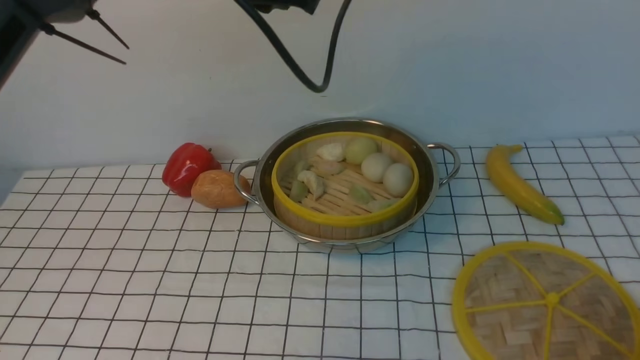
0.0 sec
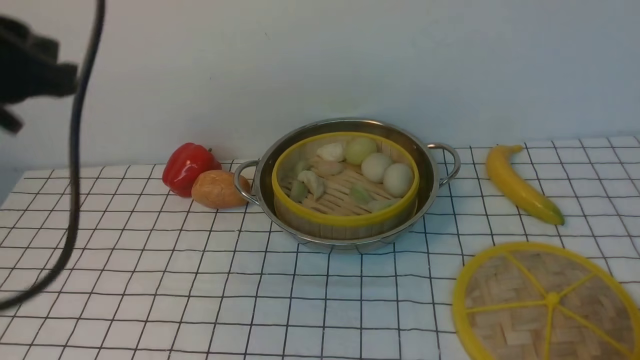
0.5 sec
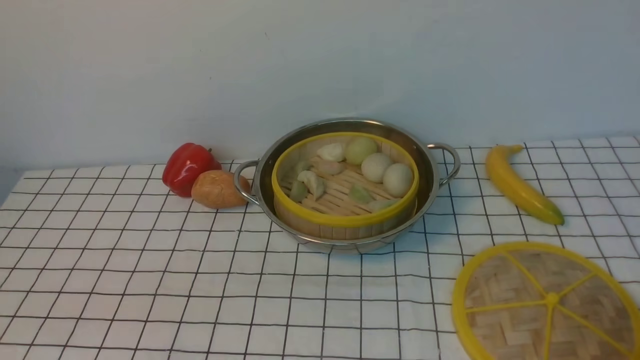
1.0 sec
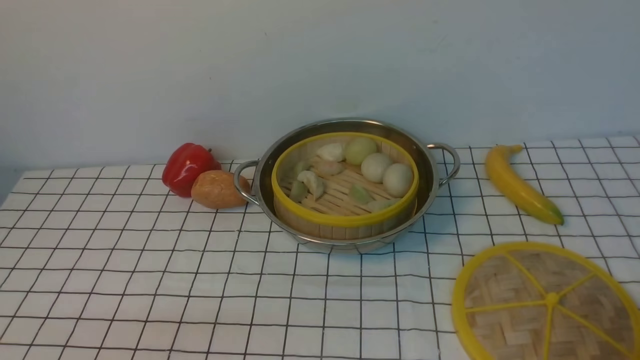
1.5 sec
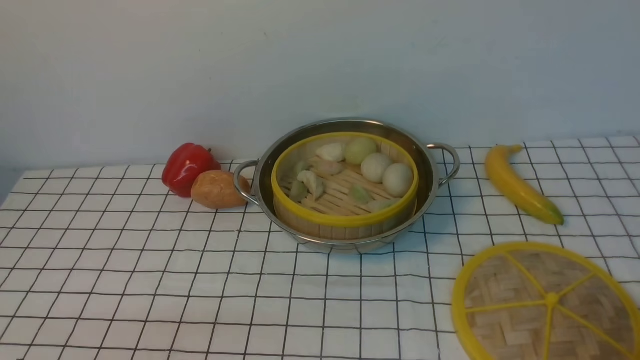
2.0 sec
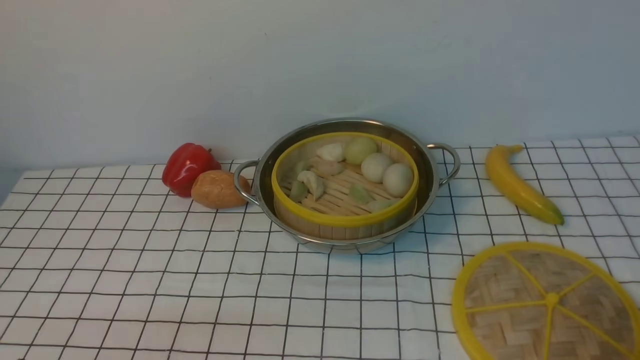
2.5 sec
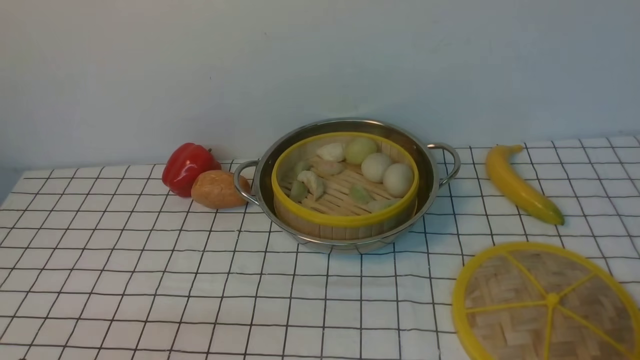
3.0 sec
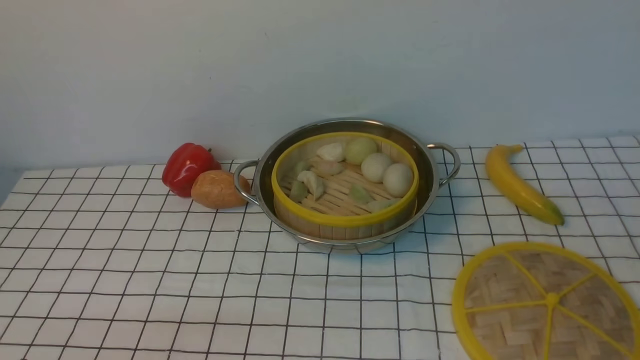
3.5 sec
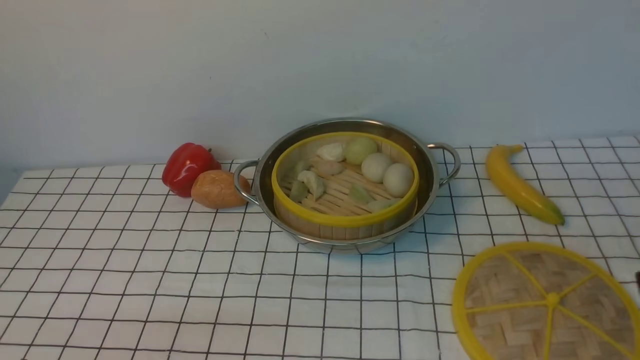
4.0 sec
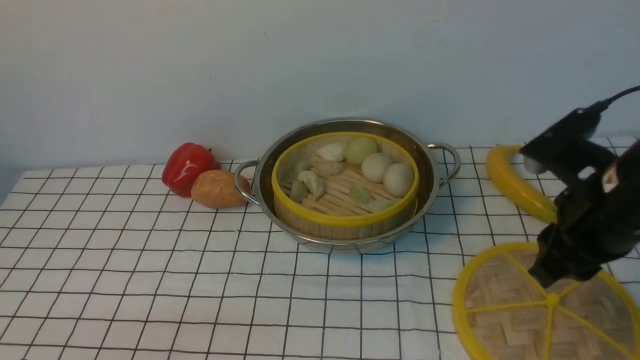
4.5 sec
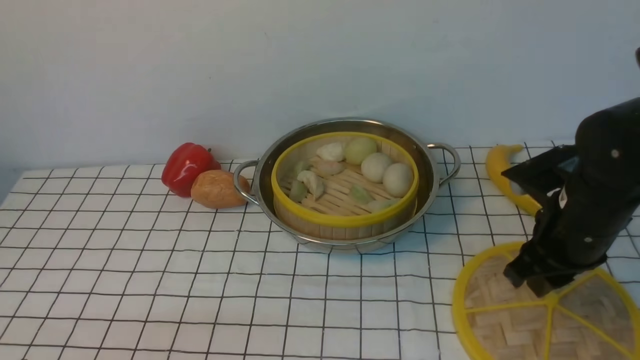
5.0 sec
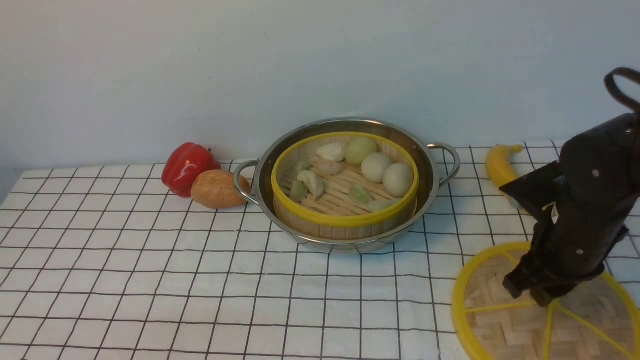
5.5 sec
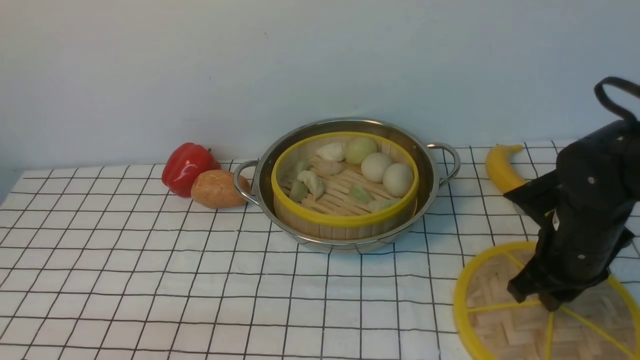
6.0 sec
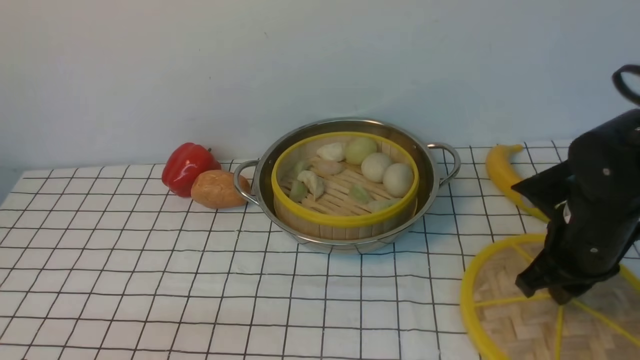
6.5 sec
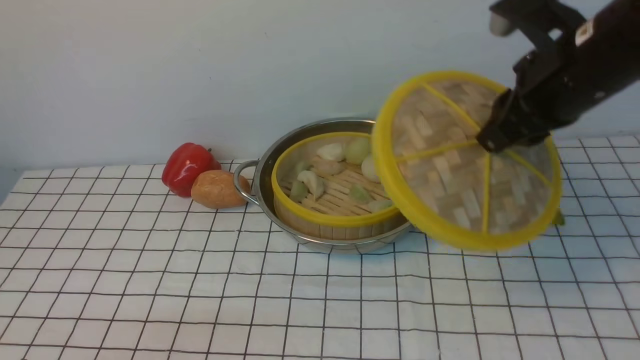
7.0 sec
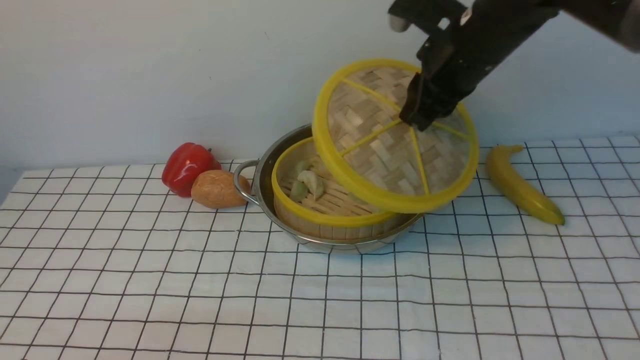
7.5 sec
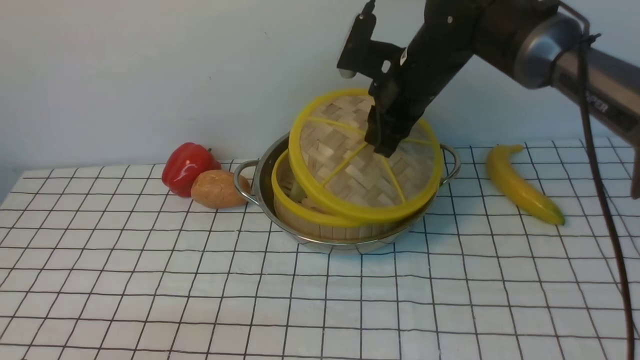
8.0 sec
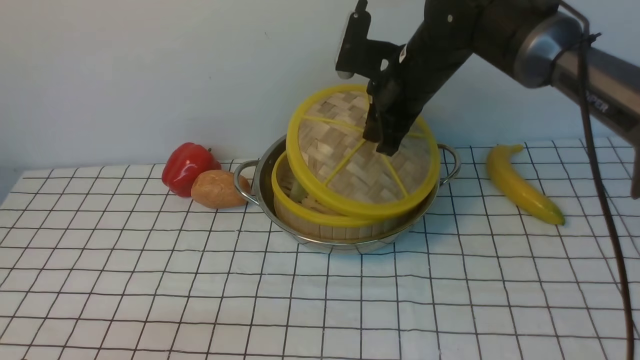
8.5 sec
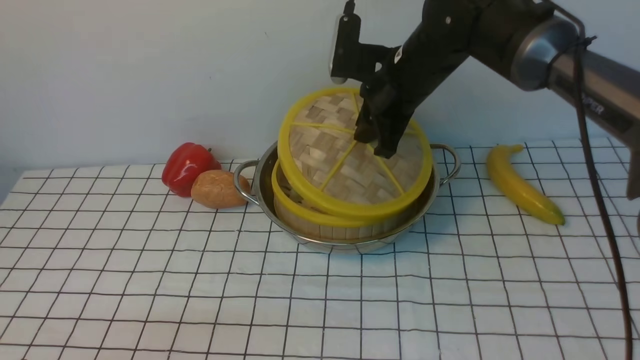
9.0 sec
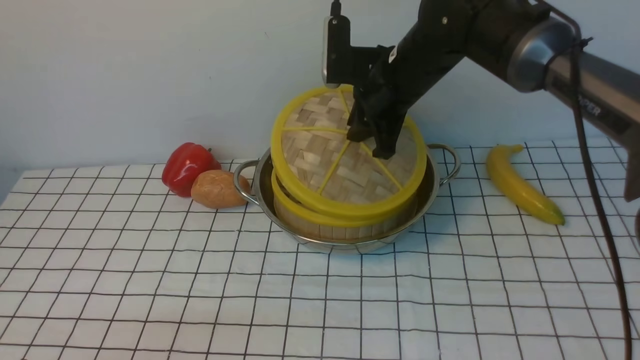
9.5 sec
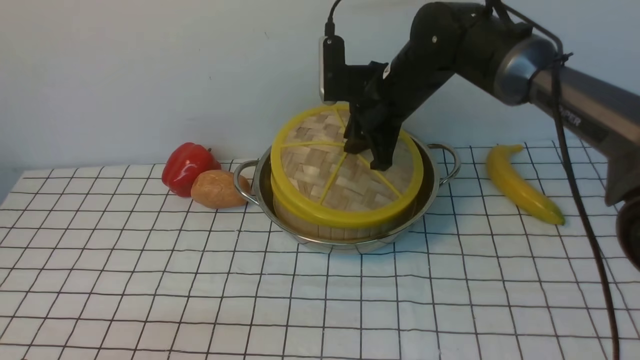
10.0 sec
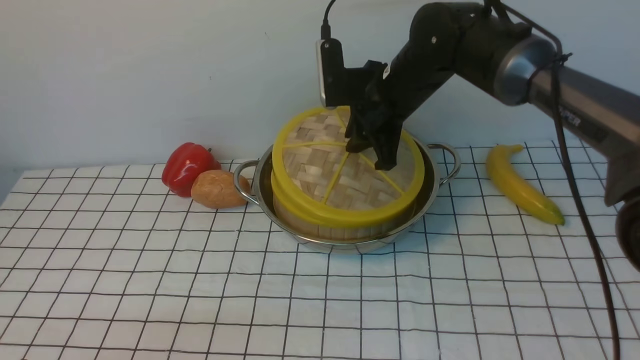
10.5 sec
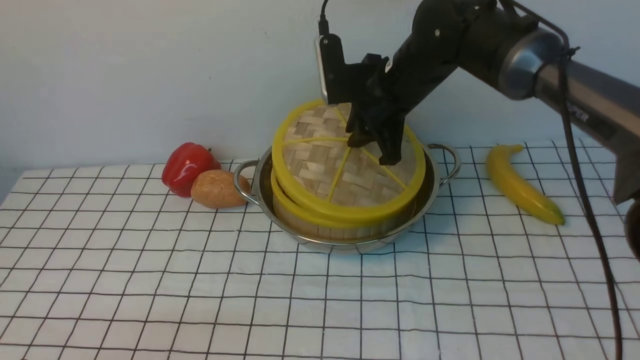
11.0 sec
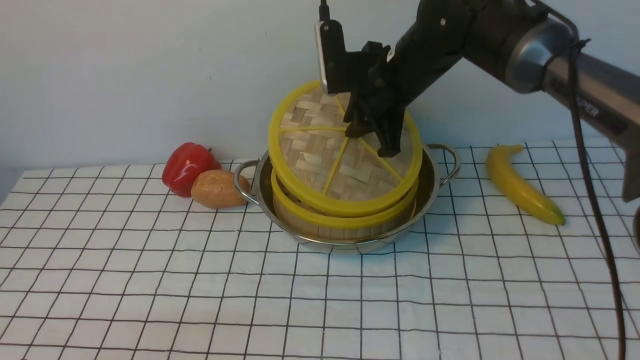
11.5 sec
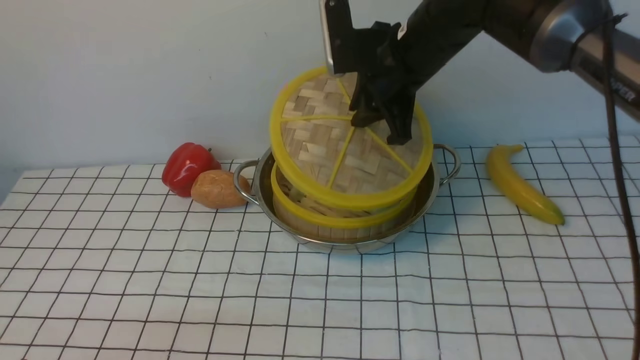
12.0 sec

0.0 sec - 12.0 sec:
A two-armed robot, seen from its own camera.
Task of the whole recording: place the steamer in the pot on the white tablecloth, and put the lid on the steamer.
Step, 0.0 sec - 6.5 sec: use the right arm to lift the lid of the steamer.
0.0 sec - 2.0 sec: The left gripper goes approximately 40 cm backward, downward and to the left.
4.0 sec - 6.0 sec: The right gripper goes some 15 cm forward, downward and to the left.
6.0 sec - 8.0 sec: The right gripper heads forward, to the left and upward, covering some 20 cm.
10.0 sec - 12.0 sec: The right gripper moves upward, some 5 cm.

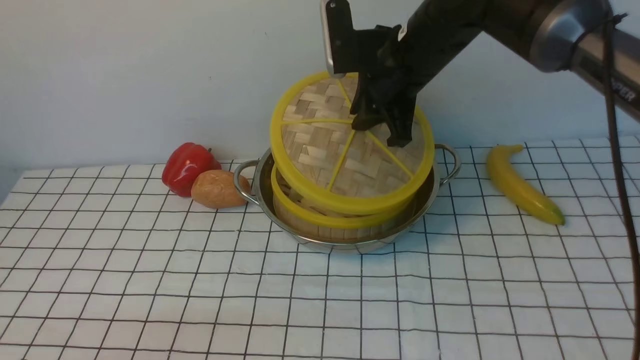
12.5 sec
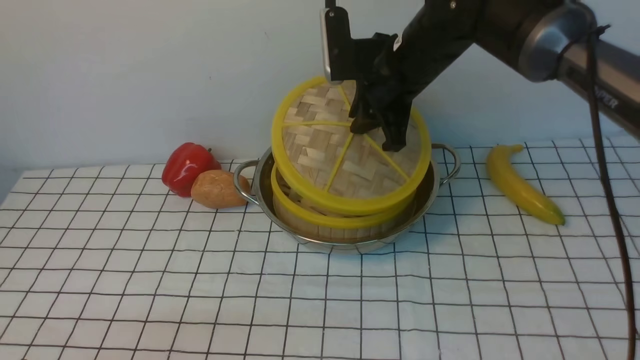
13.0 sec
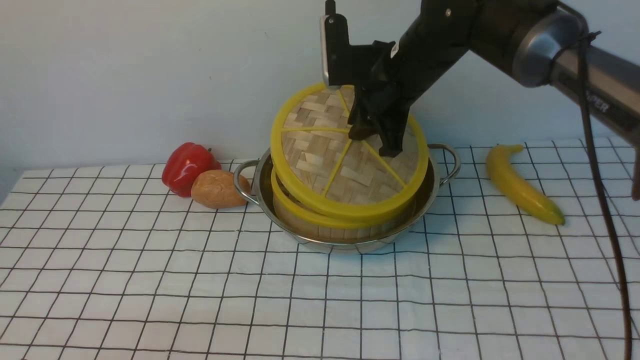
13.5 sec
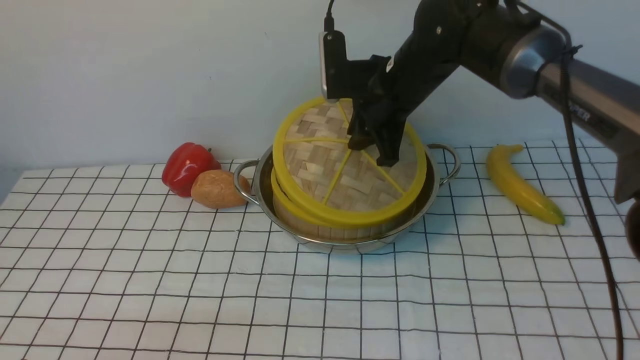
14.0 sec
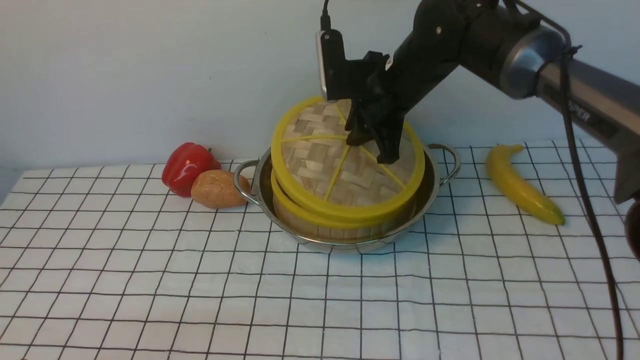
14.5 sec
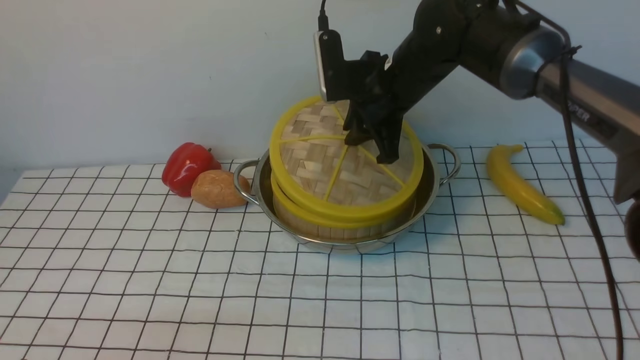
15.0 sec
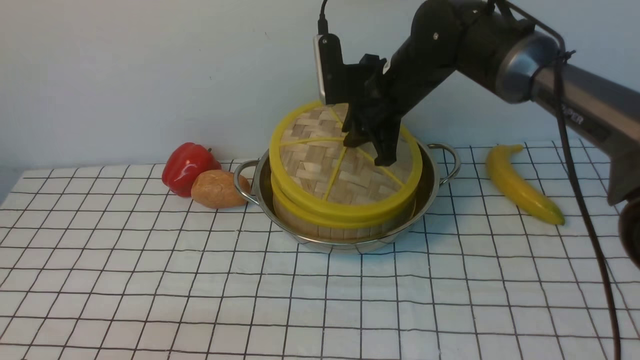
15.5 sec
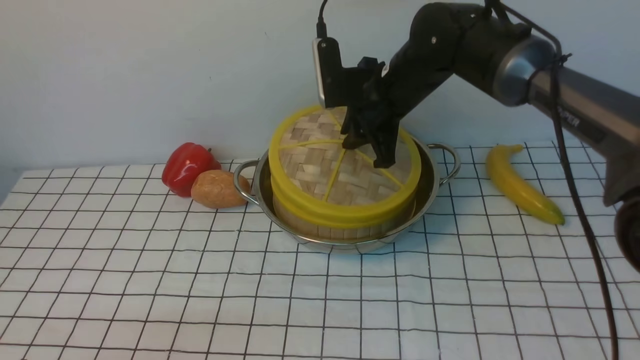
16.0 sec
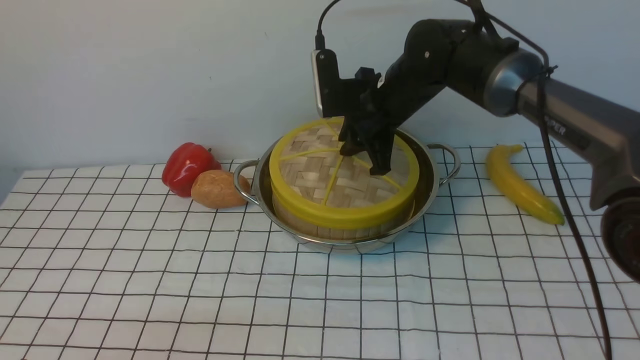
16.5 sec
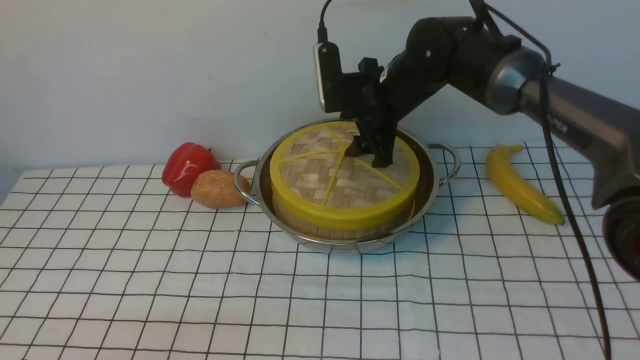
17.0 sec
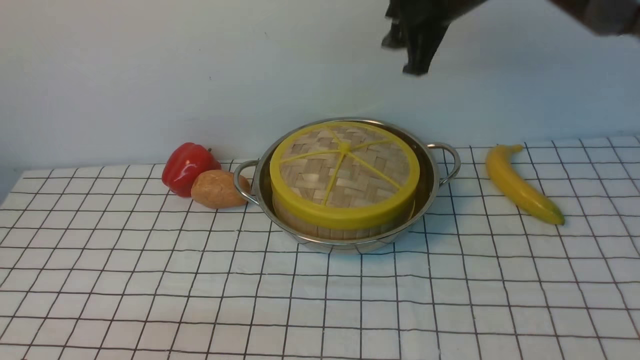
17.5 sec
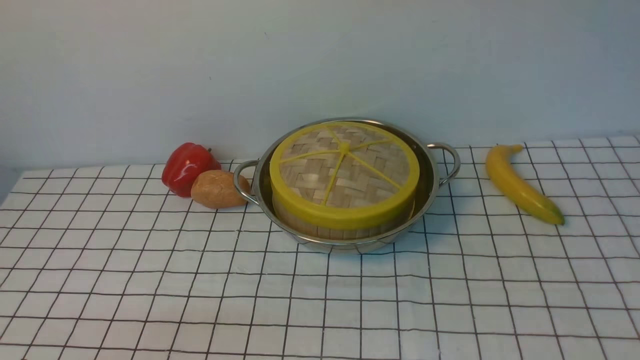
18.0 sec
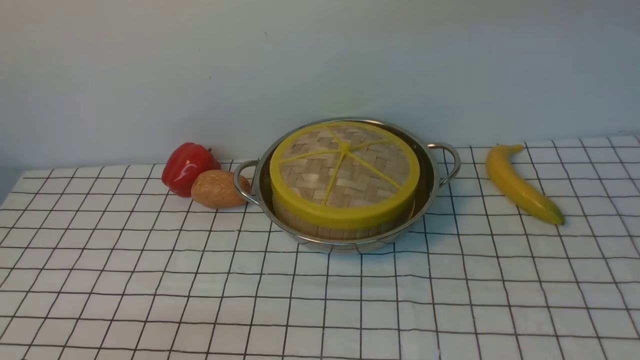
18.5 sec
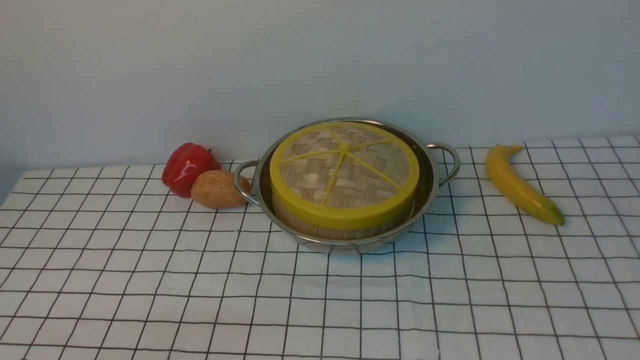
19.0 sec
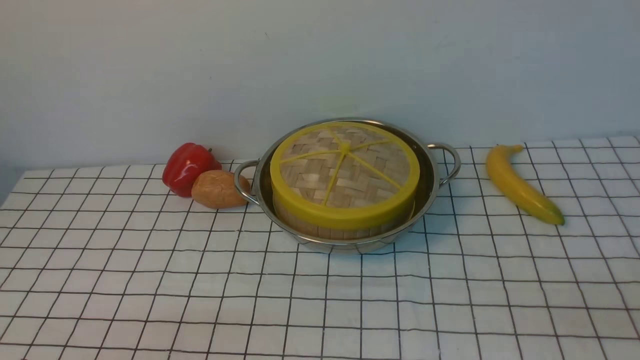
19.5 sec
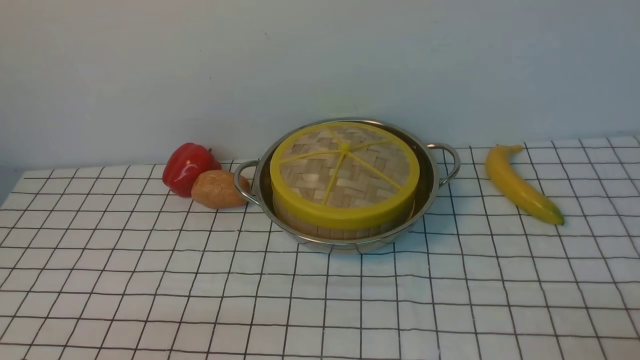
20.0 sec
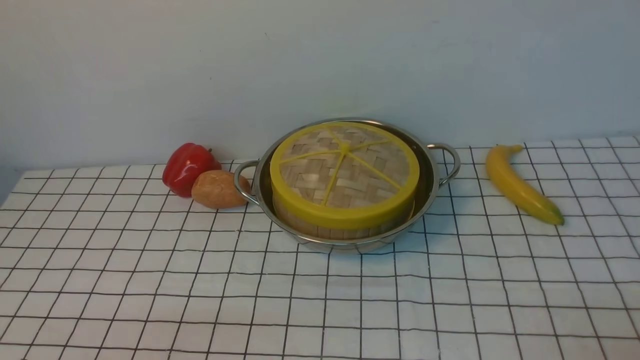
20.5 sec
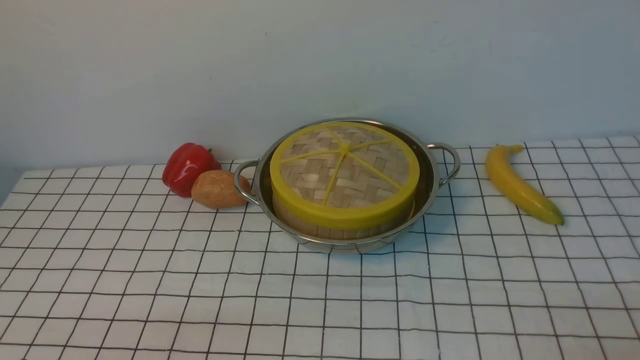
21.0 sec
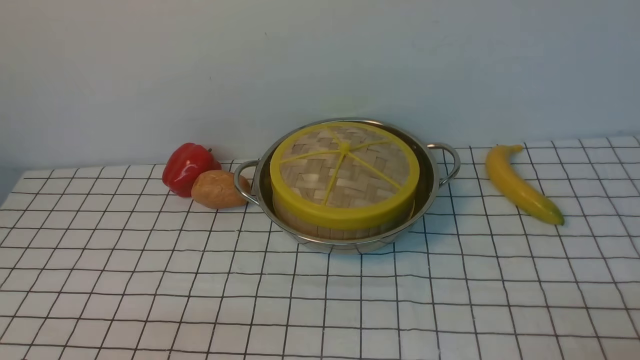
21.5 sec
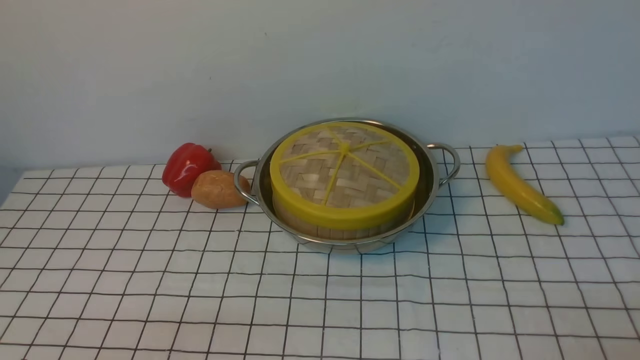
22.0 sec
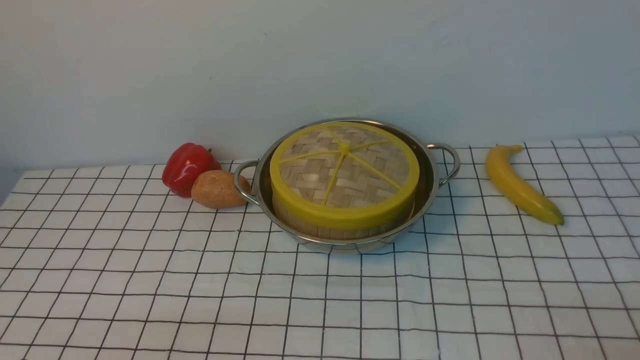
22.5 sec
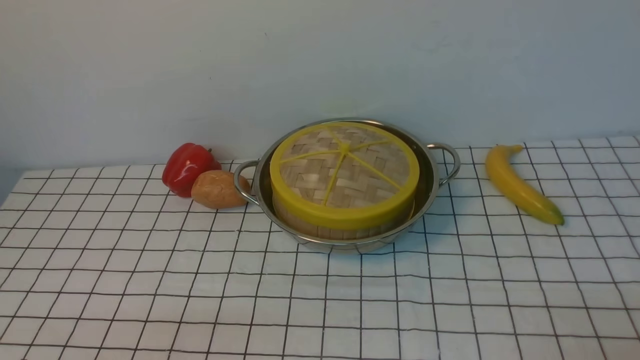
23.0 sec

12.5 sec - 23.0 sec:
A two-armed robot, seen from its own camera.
Task of the whole recording: place the steamer in the pot on the white tablecloth, and put the lid on the steamer.
Step, 12.5 sec - 17.0 sec: use the right arm to place the steamer lid on the steamer.
12.5 sec - 14.5 sec: The grippers move only a little.
14.5 sec - 16.5 sec: There are only small adjustments of the grippers.
16.5 sec - 19.0 sec: The right gripper is displaced backward and to the right by about 40 cm, and closes its fingers.
21.0 sec - 23.0 sec: Both grippers stay about where they are.
